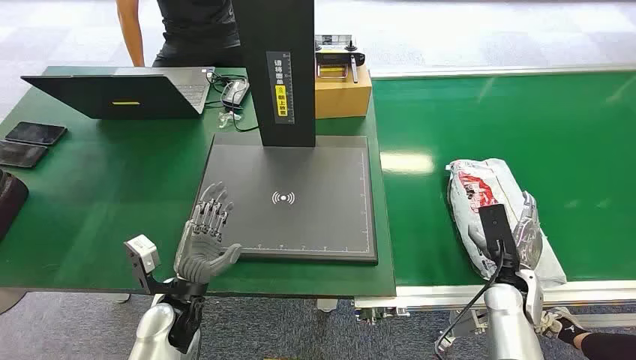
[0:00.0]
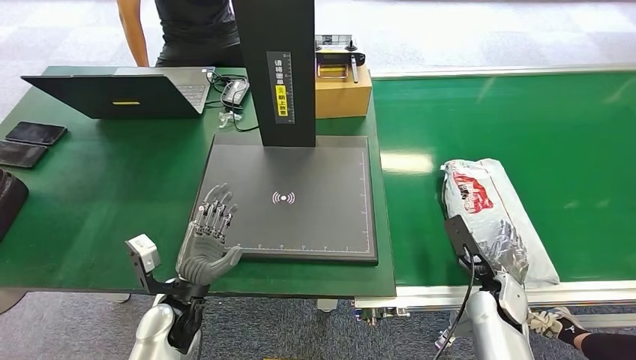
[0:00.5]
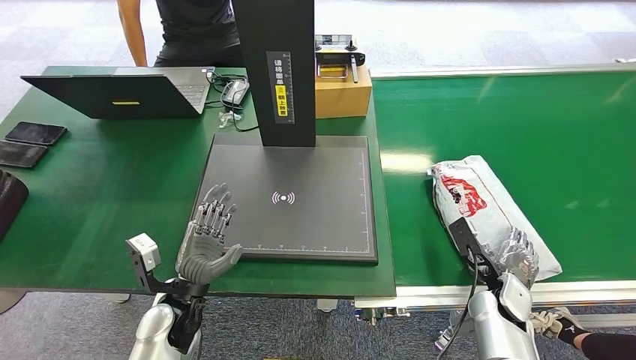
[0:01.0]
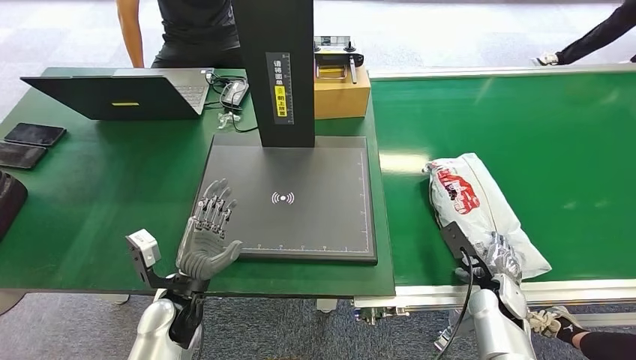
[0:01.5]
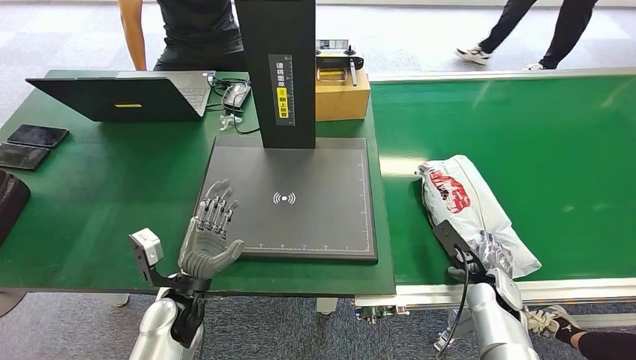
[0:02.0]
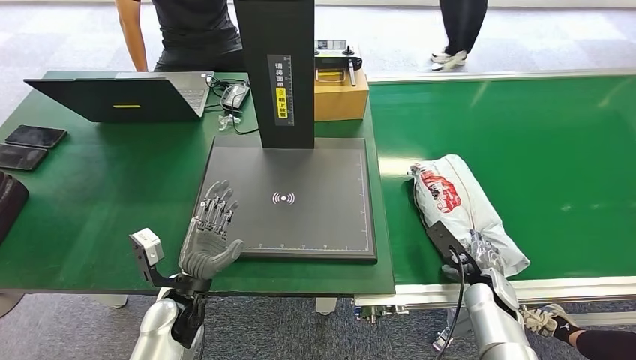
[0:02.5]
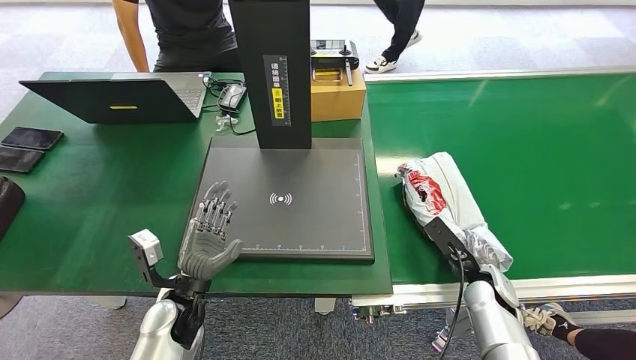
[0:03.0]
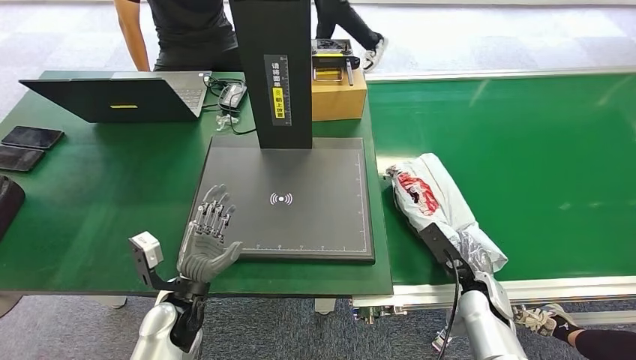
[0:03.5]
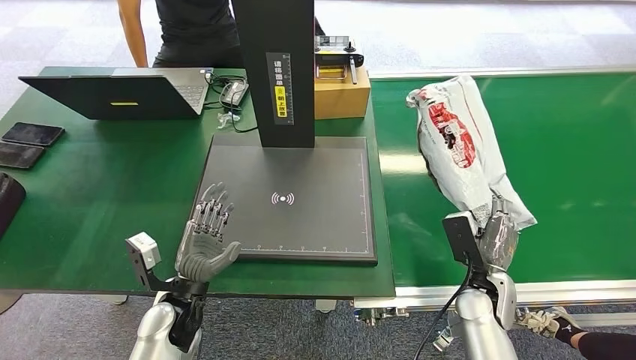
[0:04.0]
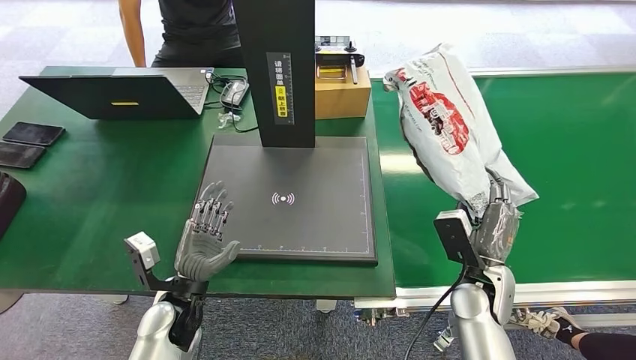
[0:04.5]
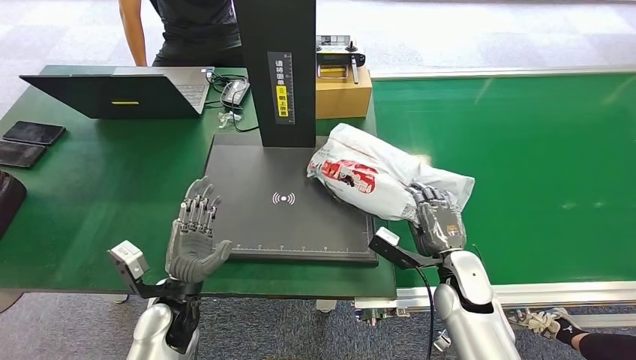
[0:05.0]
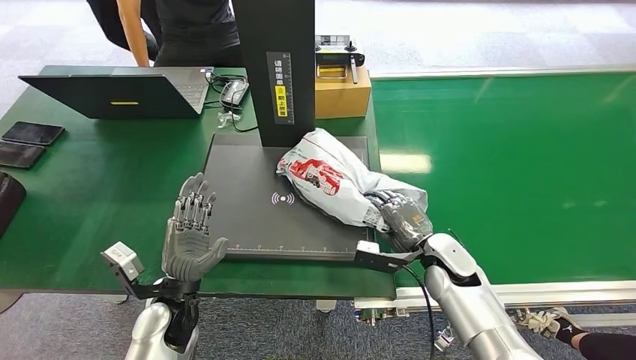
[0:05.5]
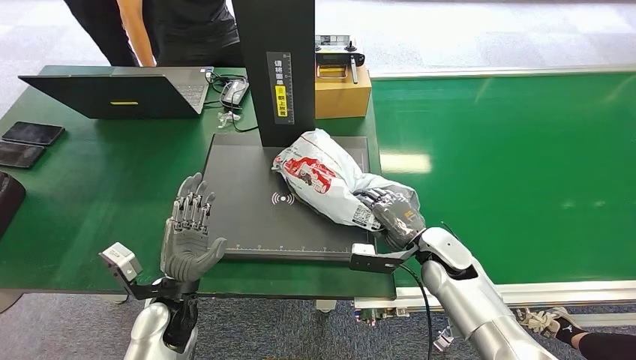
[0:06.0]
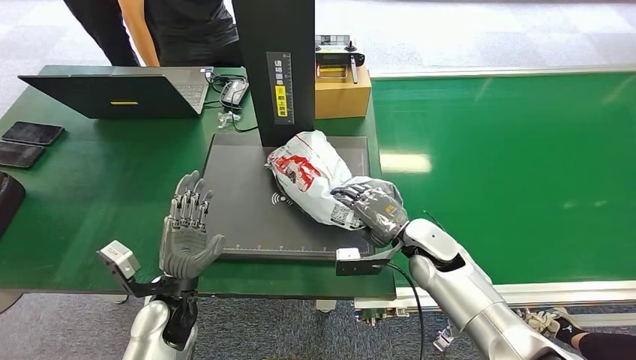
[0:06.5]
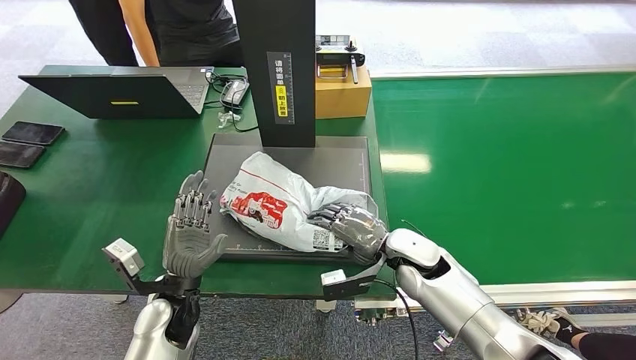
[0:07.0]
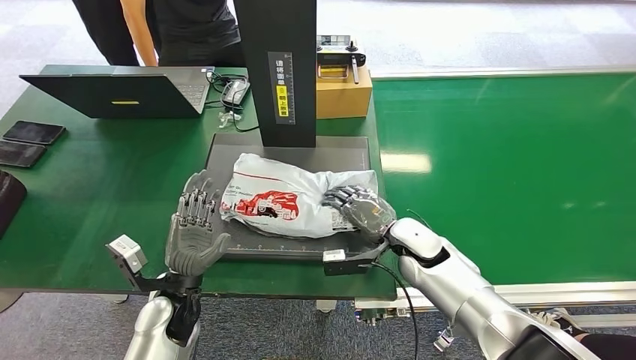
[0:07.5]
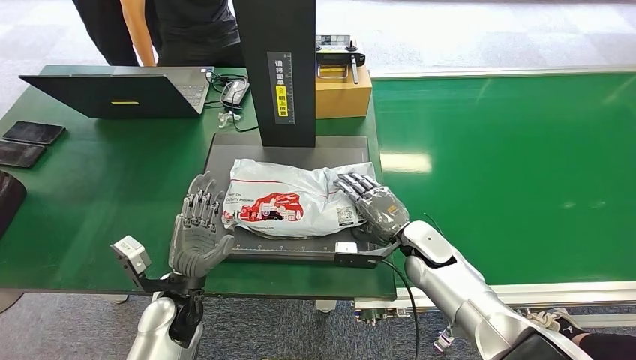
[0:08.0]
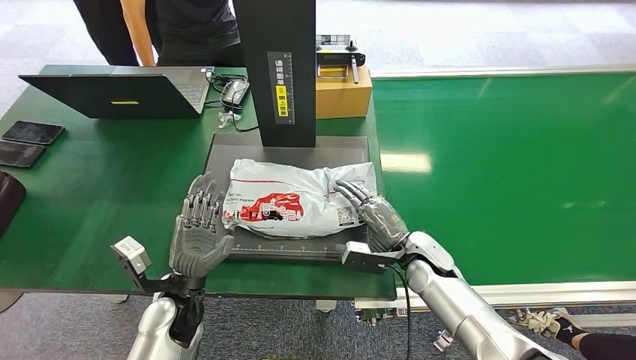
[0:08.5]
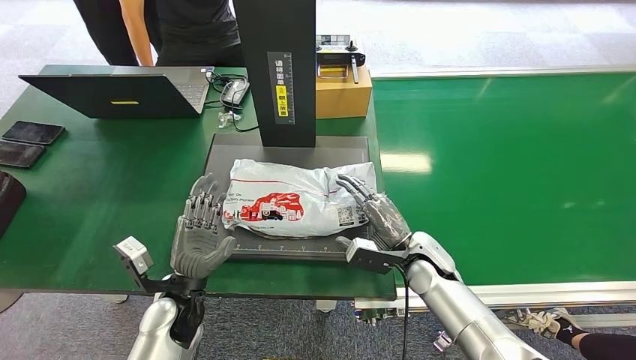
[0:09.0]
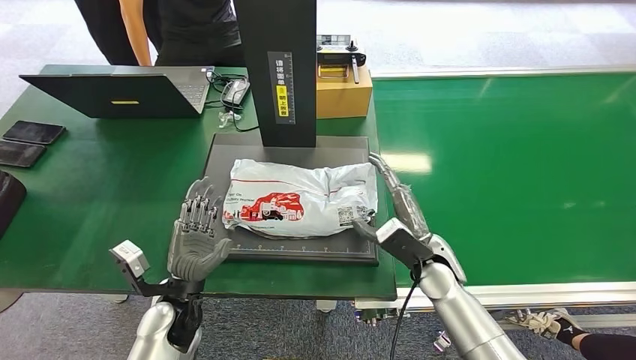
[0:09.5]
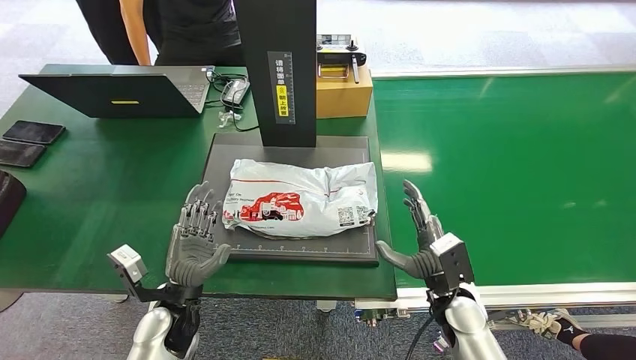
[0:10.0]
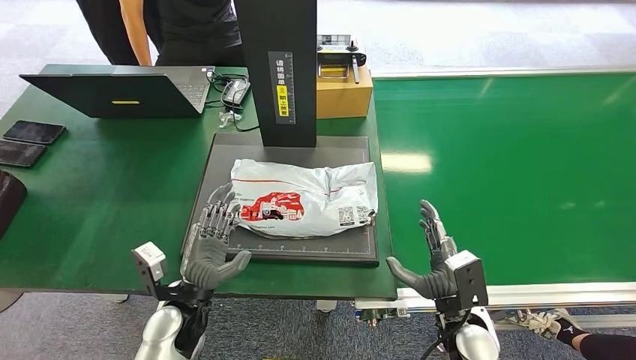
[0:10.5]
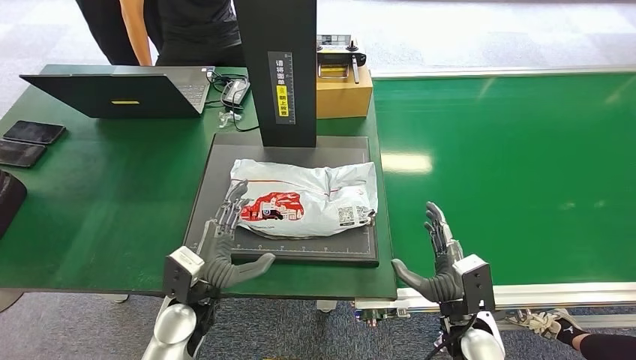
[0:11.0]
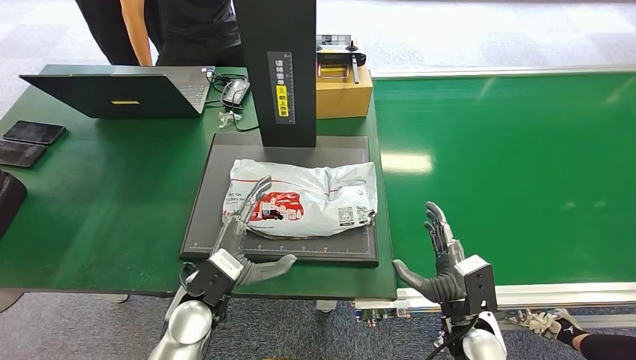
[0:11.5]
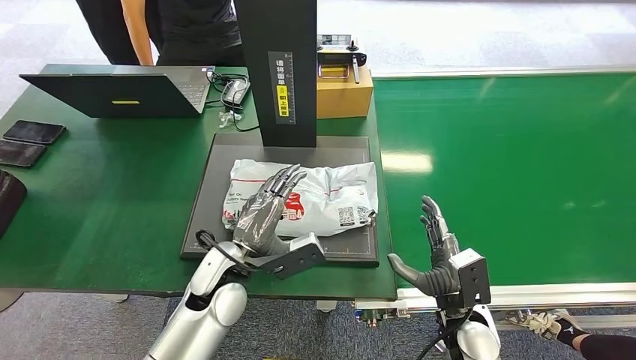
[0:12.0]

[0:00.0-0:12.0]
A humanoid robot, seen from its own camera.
Step, 0:00.0 to 0:04.0: Pick up the package from the conveyor belt.
Step, 0:04.5 to 0:06.5: Place the package onto the inbound machine.
0:08.0 to 0:10.0: The right hand goes about 10 cm backward.
0:10.0 to 0:12.0: The left hand is displaced to the right, upward and forward by roughly 10 cm.

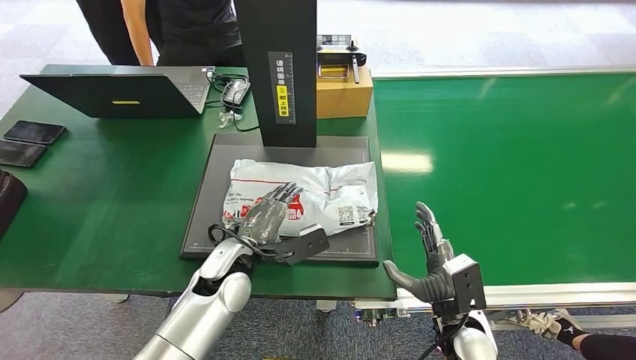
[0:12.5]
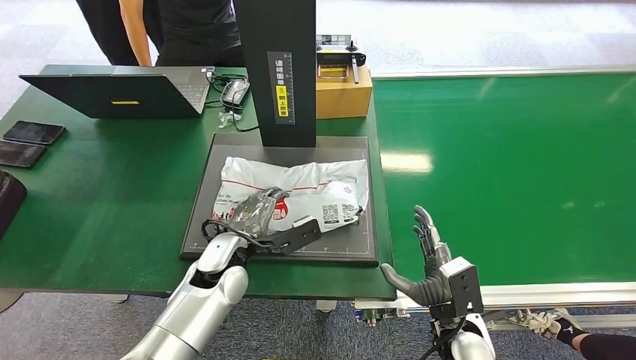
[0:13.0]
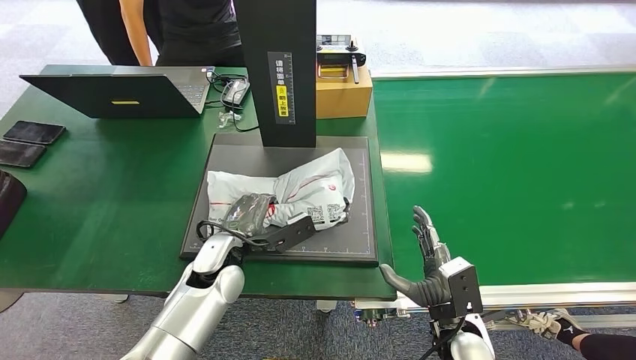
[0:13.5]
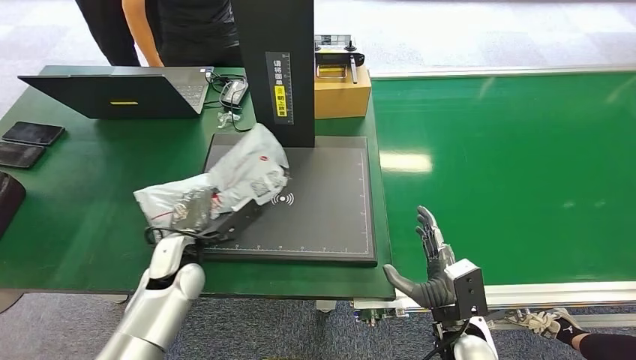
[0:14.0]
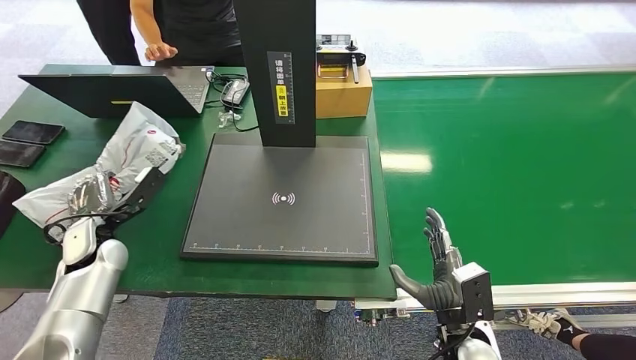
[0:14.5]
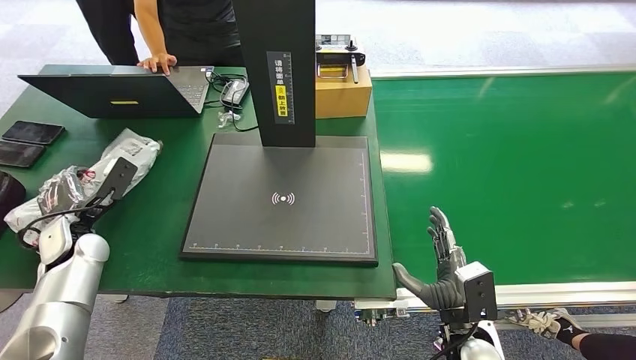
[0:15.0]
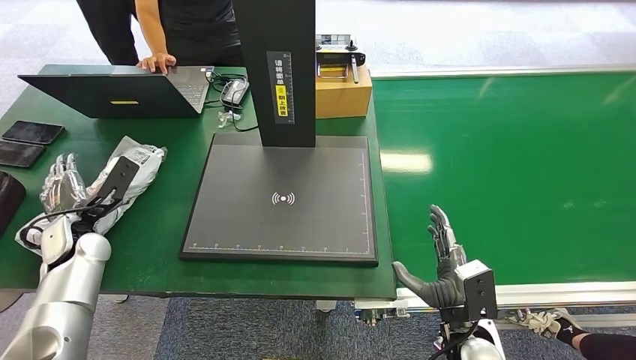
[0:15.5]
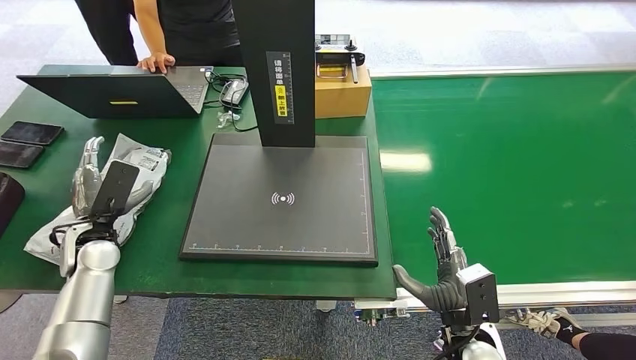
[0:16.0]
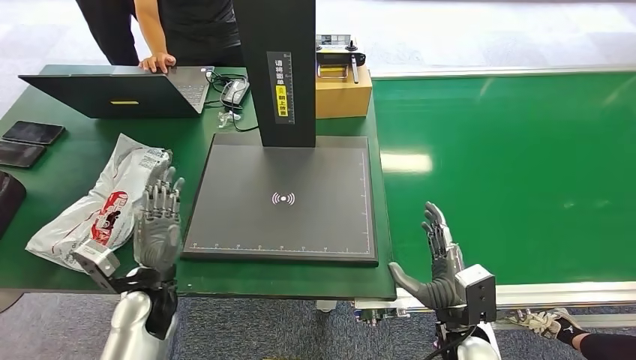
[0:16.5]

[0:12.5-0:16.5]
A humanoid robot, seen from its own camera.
Step, 0:14.5 to 0:16.0: Place the package into the parcel locker.
0:14.5 to 0:16.5: The left hand heads to the right and backward, covering about 15 cm.
